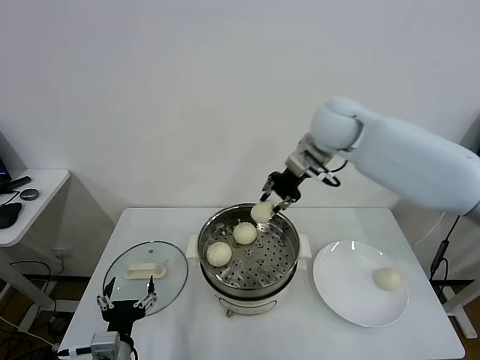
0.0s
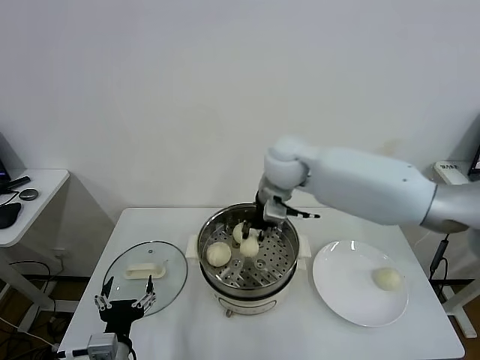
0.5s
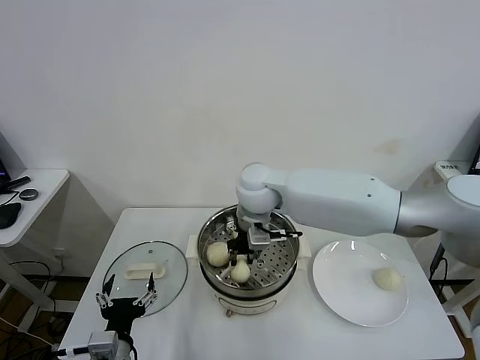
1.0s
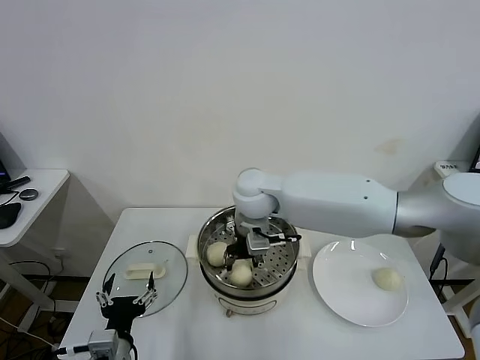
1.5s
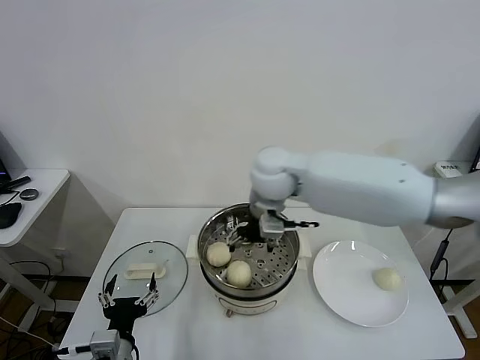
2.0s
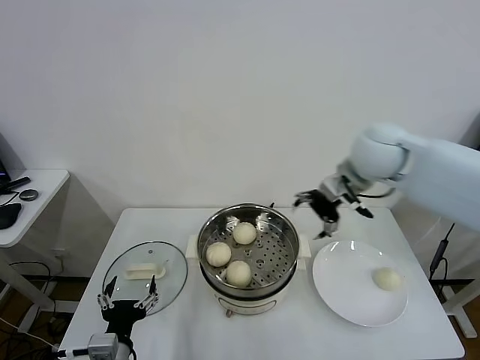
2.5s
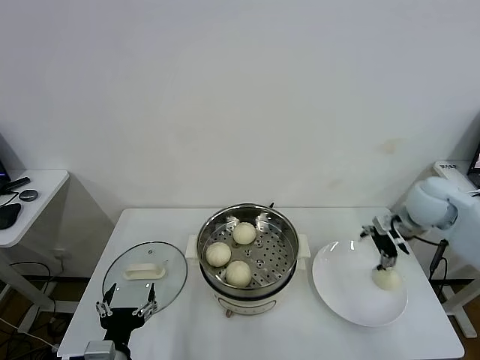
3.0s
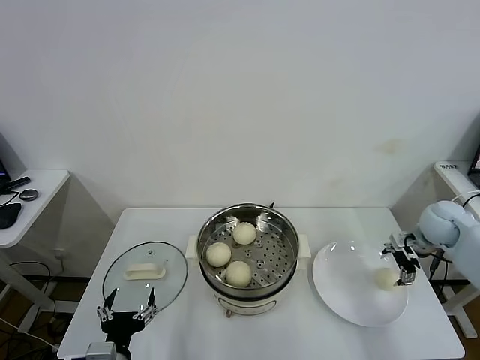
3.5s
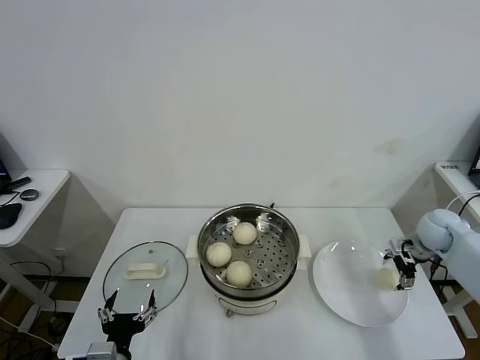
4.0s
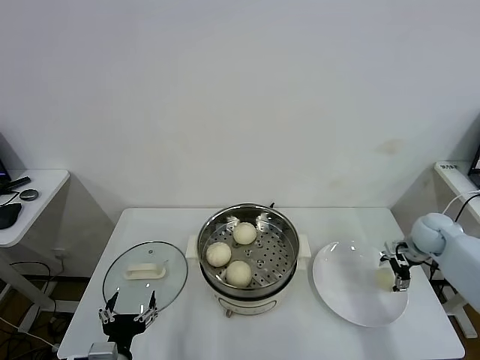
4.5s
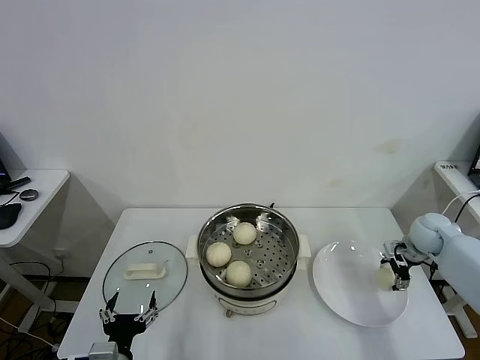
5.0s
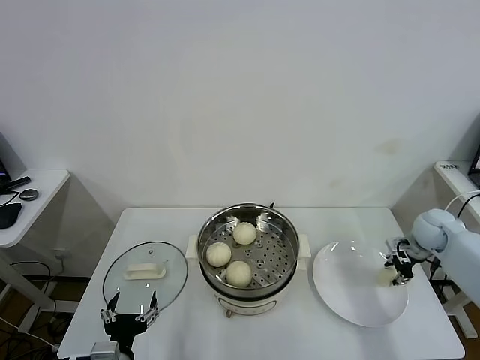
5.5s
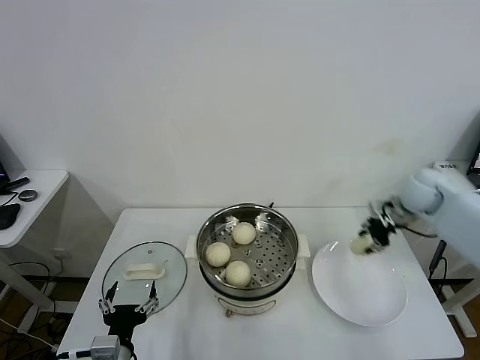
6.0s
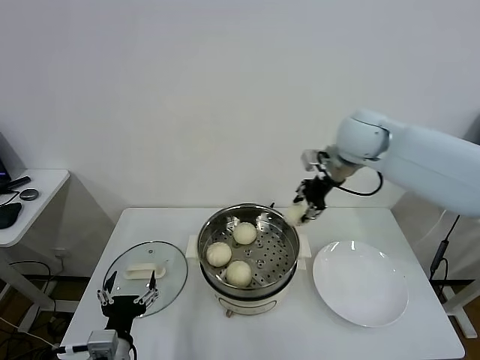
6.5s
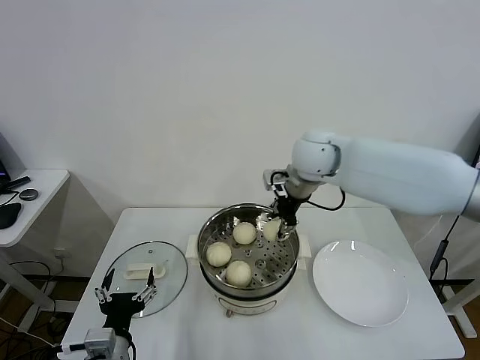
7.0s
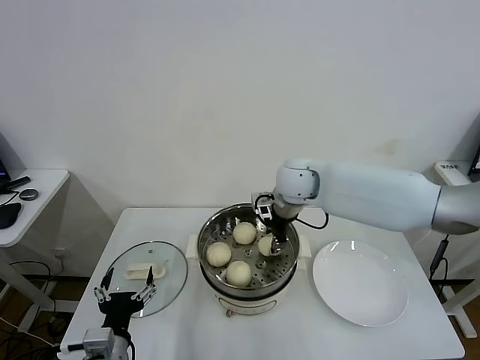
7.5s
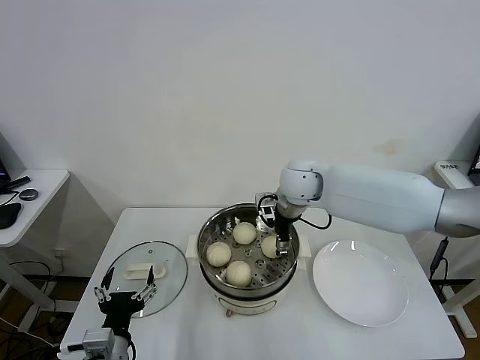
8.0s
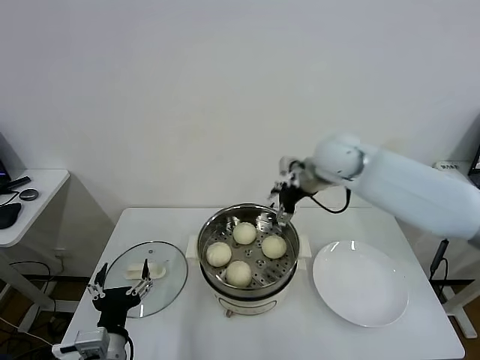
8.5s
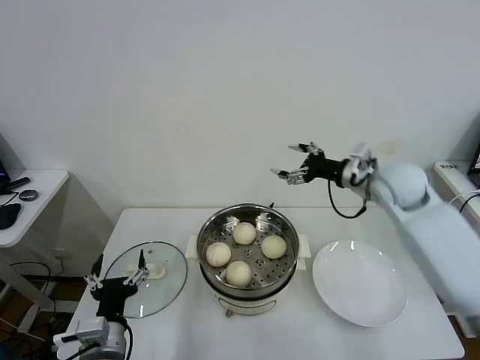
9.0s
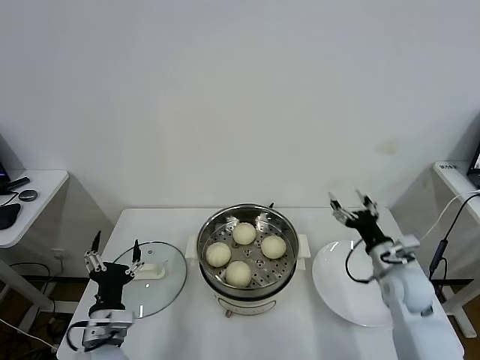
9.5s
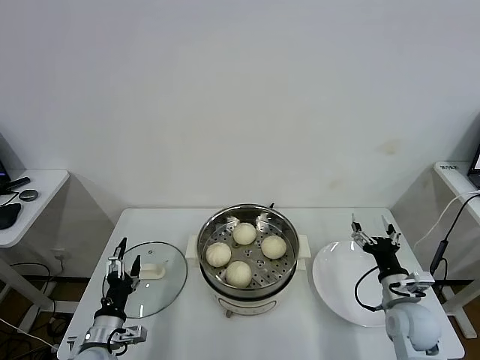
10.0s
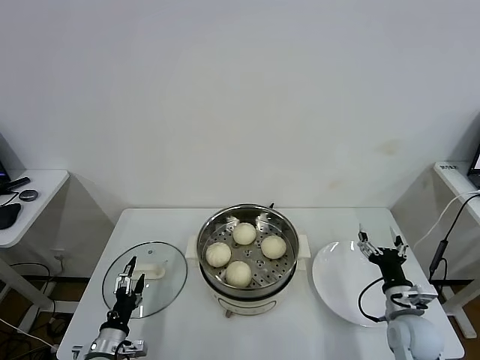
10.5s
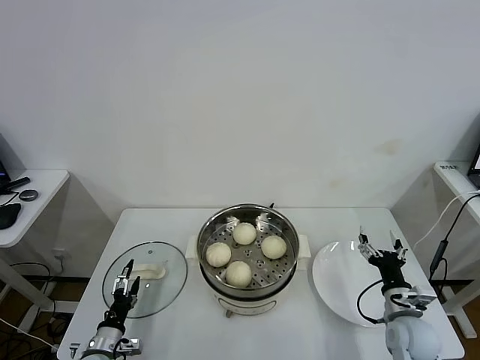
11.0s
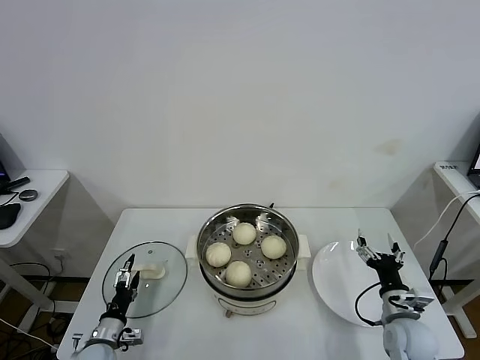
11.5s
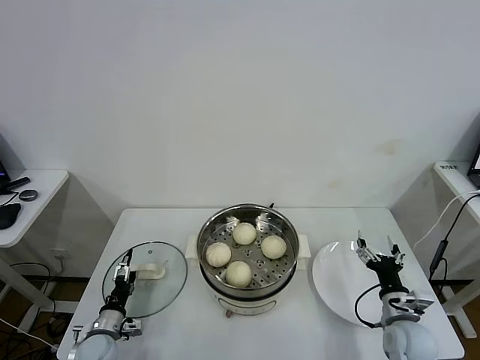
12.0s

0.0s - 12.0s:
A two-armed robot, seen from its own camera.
Task of the whole recording: take steamed baozi put them in steamer.
Step, 2.0s - 5.0s: Grasp the baozi in the plate with right gripper.
Step, 5.5s - 8.0s: Place the baozi on the steamer with right gripper.
0.0s - 2.0s: The right gripper heads to the left, downward and backward, covering some 15 cm, and opens its fingers.
2.0s - 4.0s: The right gripper heads to the right and downward, covering approximately 50 cm.
4.0s - 6.0s: The right gripper travels upward and to the left by roughly 10 cm, and closes.
6.0s - 8.0s: The right gripper goes roughly 30 cm to the left, and opens.
8.0s - 10.0s: The right gripper moves to the right, backward and downward, roughly 40 cm. Meanwhile the left gripper is displaced downward, forward and to the left by about 10 cm.
10.0s - 12.0s: The left gripper heads downward and to the left, covering about 10 cm.

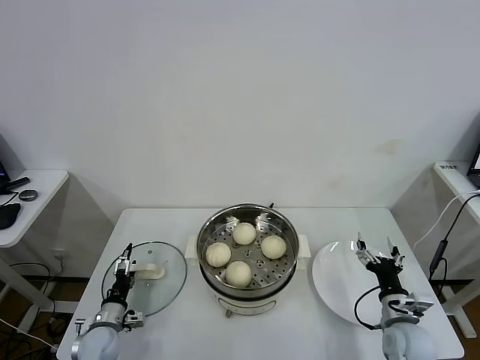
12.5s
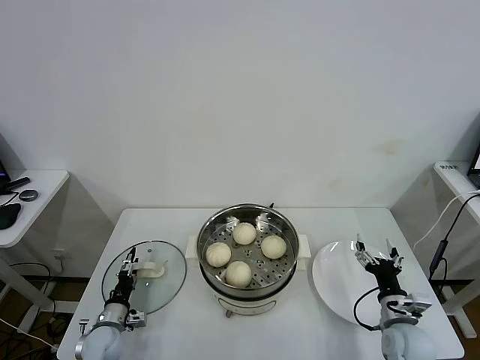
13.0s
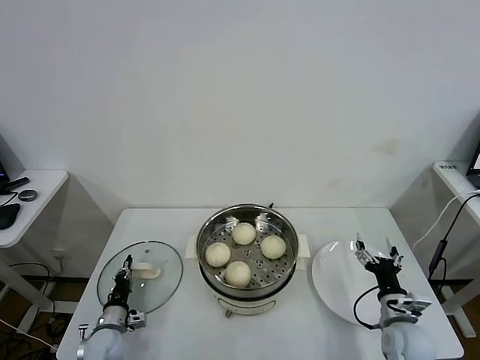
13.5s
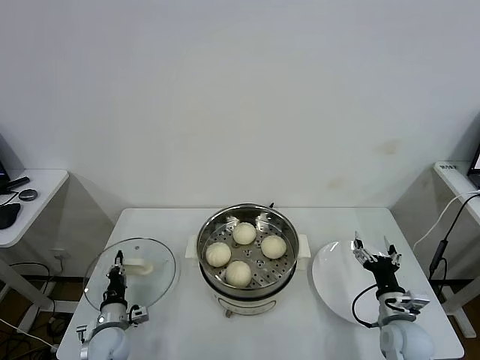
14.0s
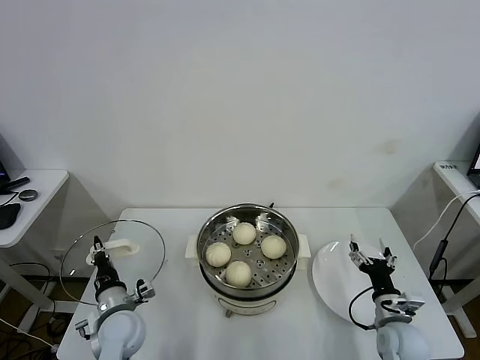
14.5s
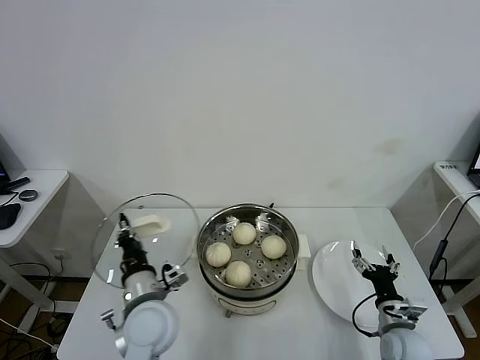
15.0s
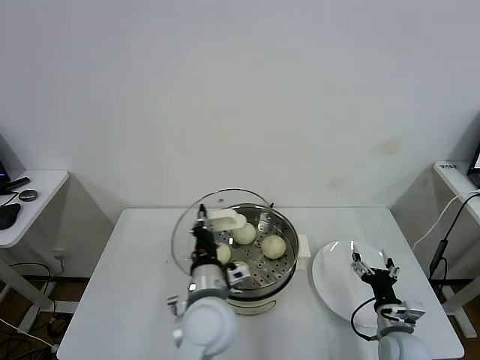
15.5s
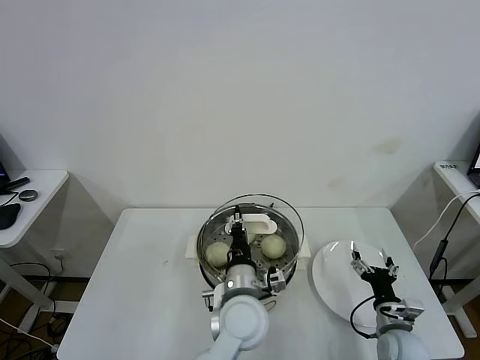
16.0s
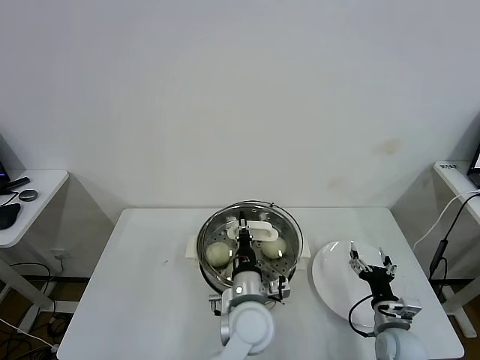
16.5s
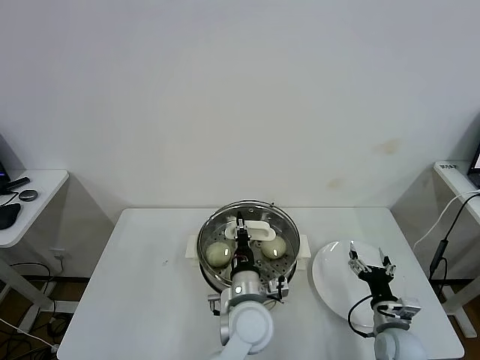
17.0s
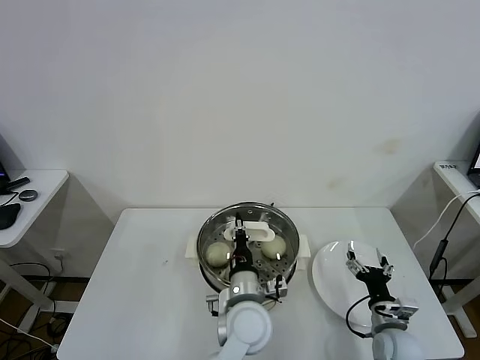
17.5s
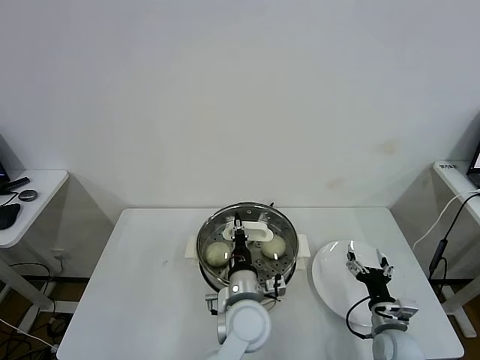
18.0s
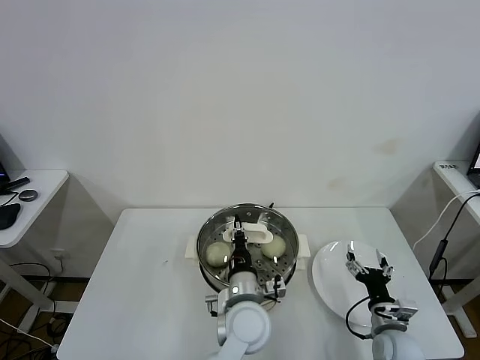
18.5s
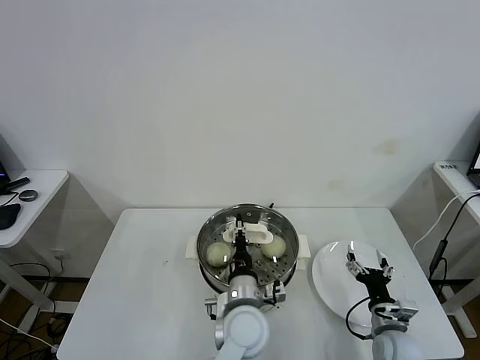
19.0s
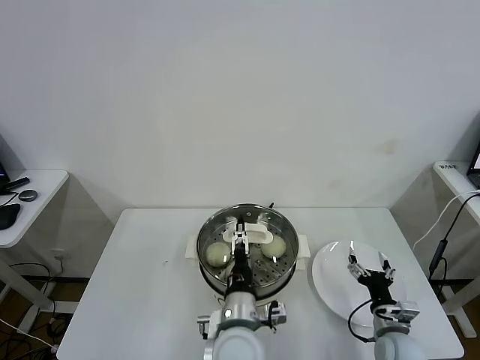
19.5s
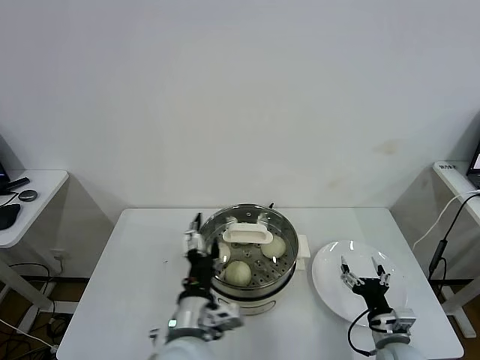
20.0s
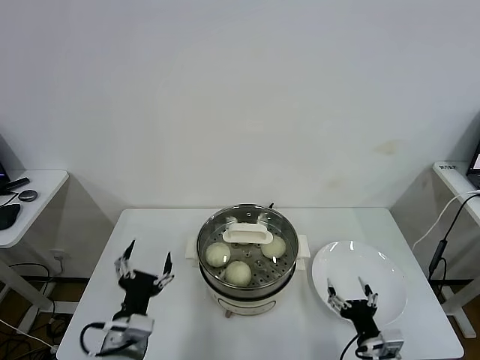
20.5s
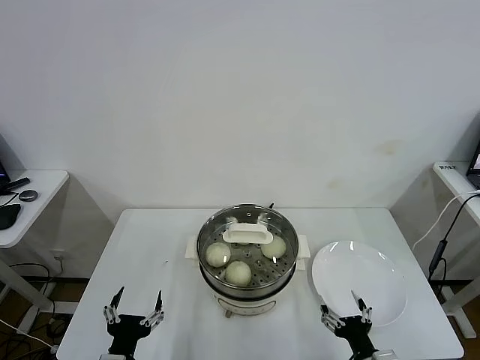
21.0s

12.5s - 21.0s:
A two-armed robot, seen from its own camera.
Task of the whole recording: take steamed baozi put them in steamer.
Step, 14.0s - 19.5s: Place the pot lid on the steamer with left gripper.
12.5s - 14.5s: The left gripper moves upward and to the right, approximately 15 cm, and closes up.
14.5s - 16.5s: The left gripper moves to the right, about 30 cm.
16.5s - 19.0s: The two grippers keep their place.
19.0s - 21.0s: The right gripper is displaced backward and to the left by roughly 15 cm. Meanwhile the left gripper travels to the left and backward by about 30 cm, and opens its fingers.
